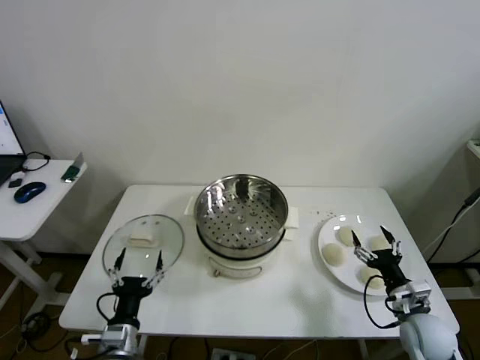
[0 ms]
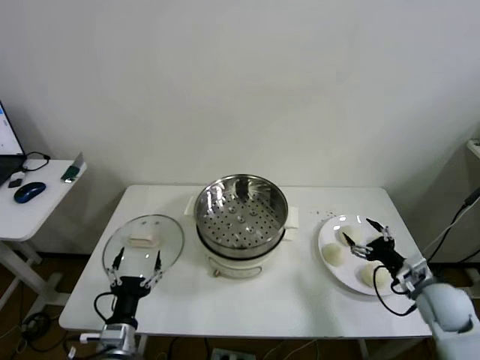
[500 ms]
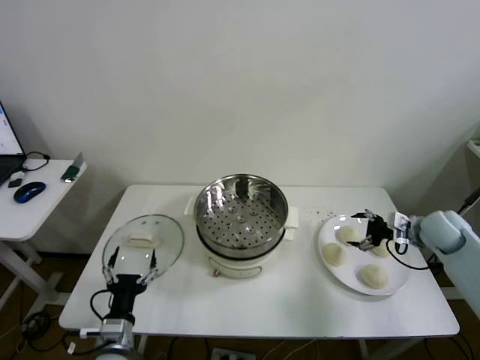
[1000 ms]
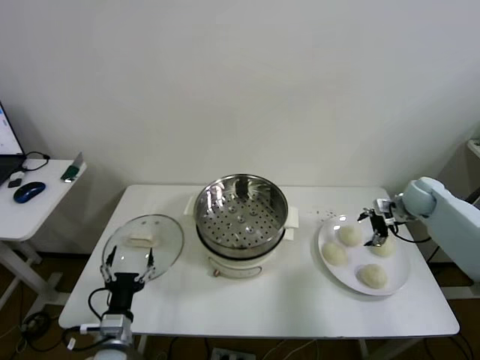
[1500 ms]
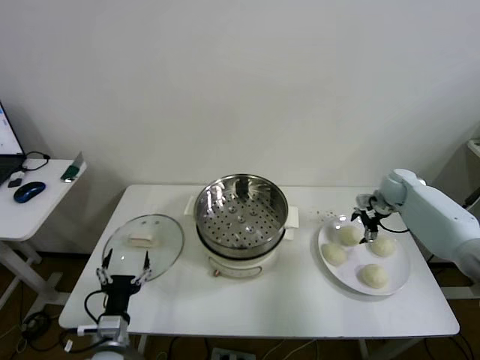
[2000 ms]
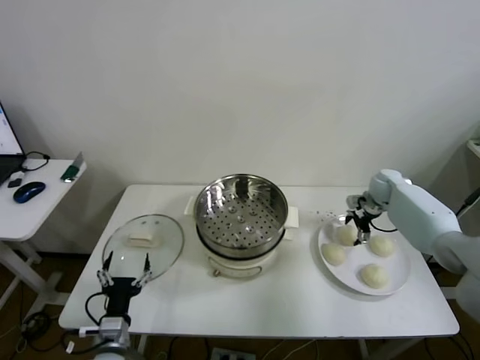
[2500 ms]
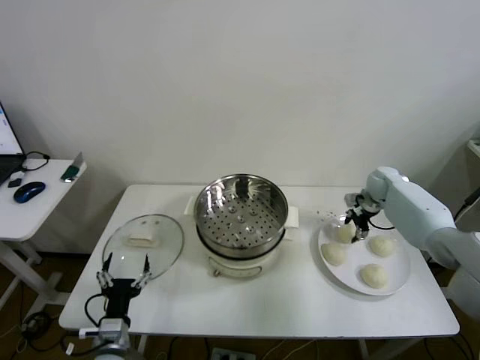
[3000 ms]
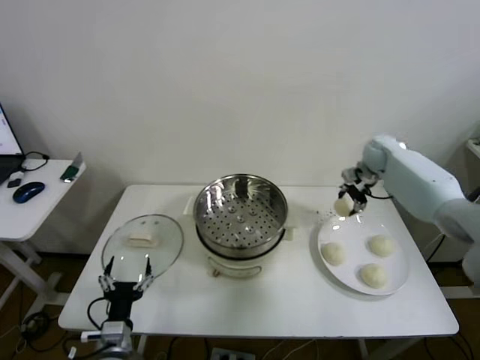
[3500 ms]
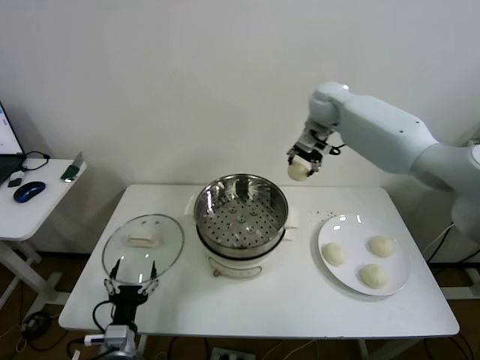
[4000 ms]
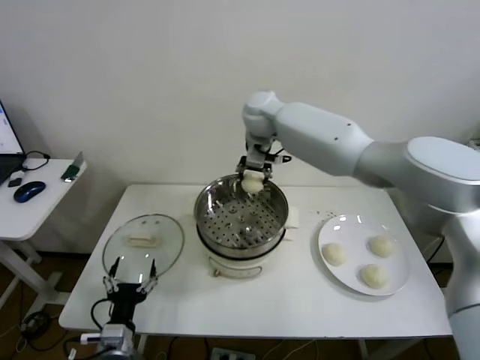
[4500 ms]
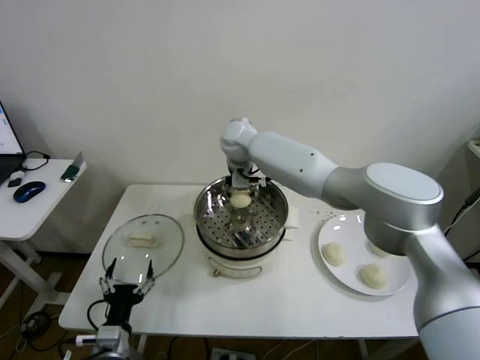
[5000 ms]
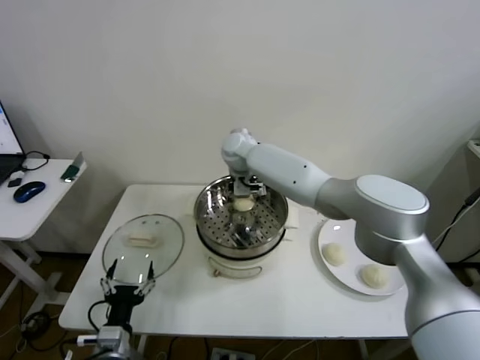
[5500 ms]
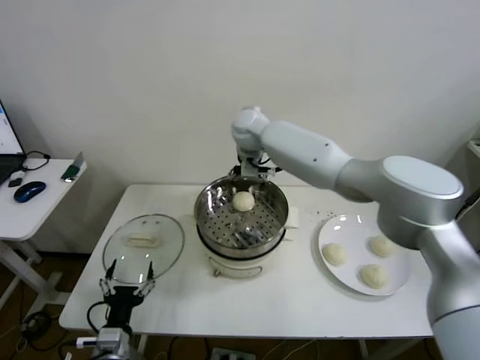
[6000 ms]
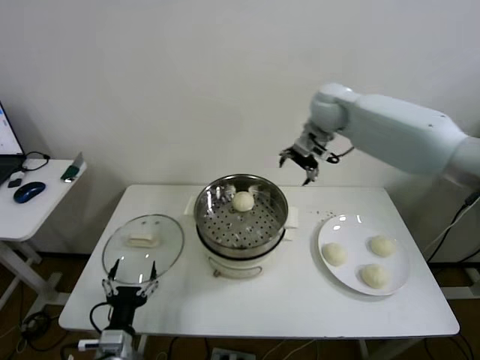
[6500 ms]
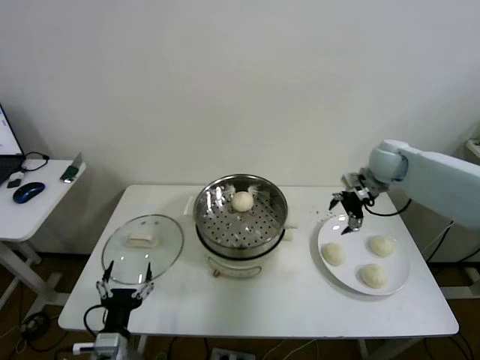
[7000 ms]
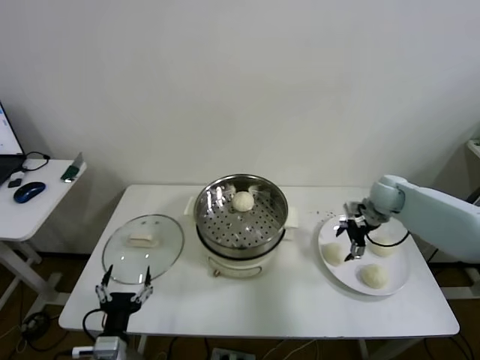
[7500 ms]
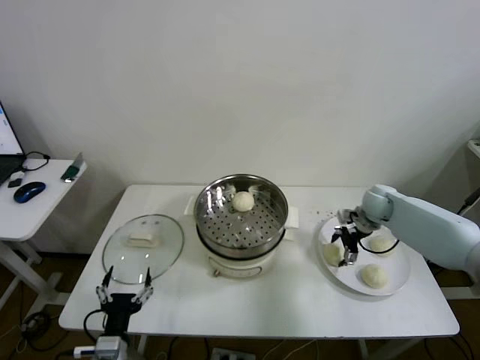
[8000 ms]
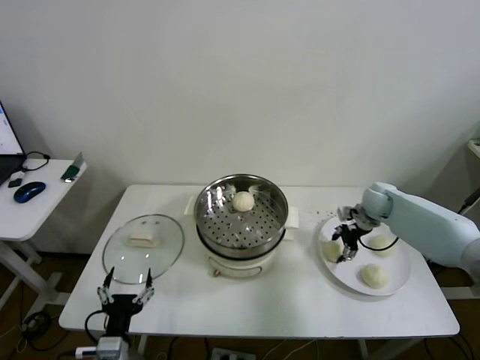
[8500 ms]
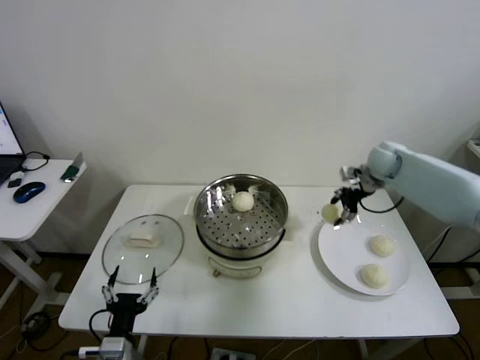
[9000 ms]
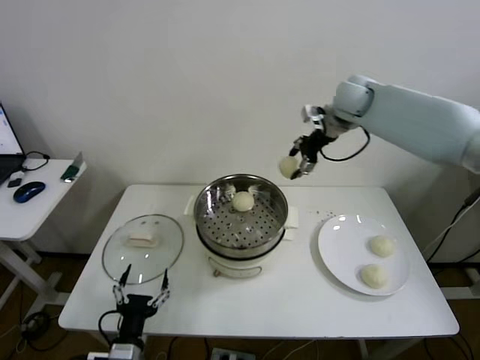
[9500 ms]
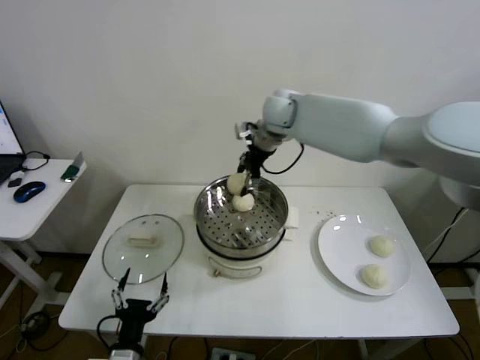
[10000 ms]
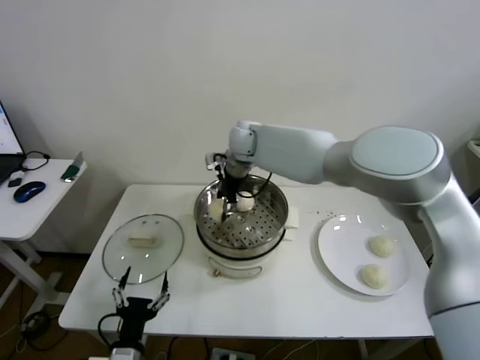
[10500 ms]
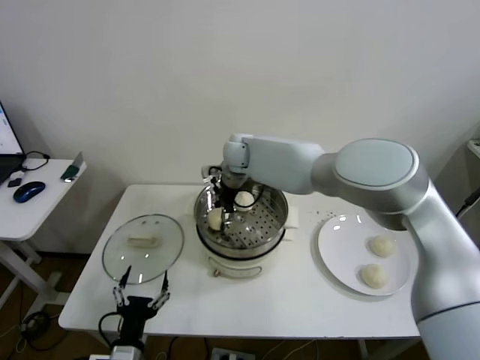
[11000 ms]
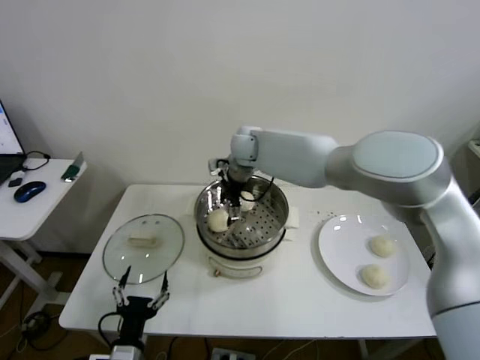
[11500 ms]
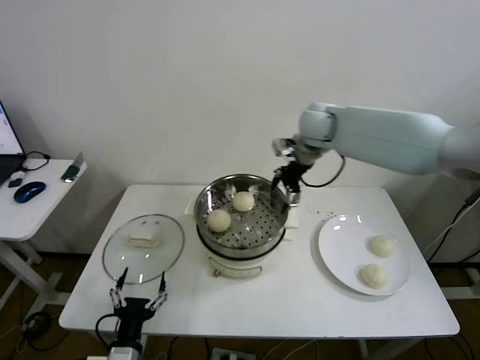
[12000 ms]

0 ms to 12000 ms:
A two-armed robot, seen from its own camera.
Step, 0 ms to 2500 ms: Grasp the baozi in the plate with right gripper.
Step, 3000 ms to 5500 ms: Place the baozi on the steamer with right gripper.
Step, 6000 ms to 8000 ms: Grasp the baozi in the plate with right gripper.
Step, 9000 ms to 11000 ms: Place the baozi on the steamer with right gripper.
2000 ms to 4000 ms: The right gripper moves to the left and upward, about 35 cm, and closes up.
4000 ms to 6000 ms: The right gripper travels to the left by some 10 cm, and opens its fingers.
6000 ms to 8000 ms: The right gripper shifts about 40 cm to the right and downward.
8000 ms to 10000 ms: The right gripper goes about 40 cm to the left and upward, and closes.
10000 ms to 12000 ms: The right gripper moves to the right, about 15 cm, and opens its fingers.

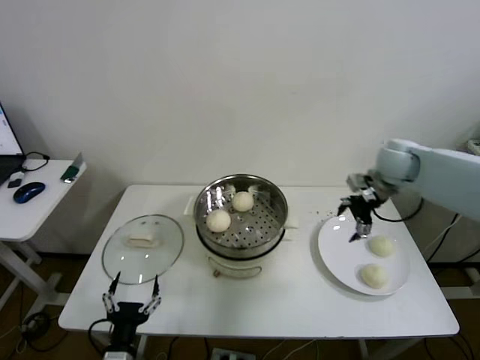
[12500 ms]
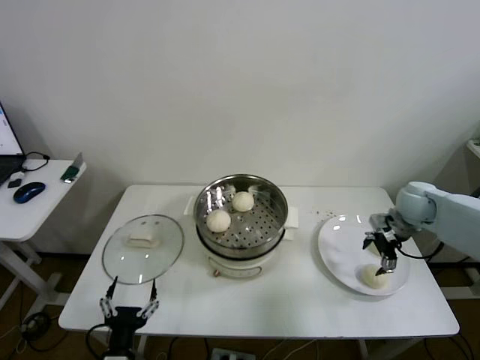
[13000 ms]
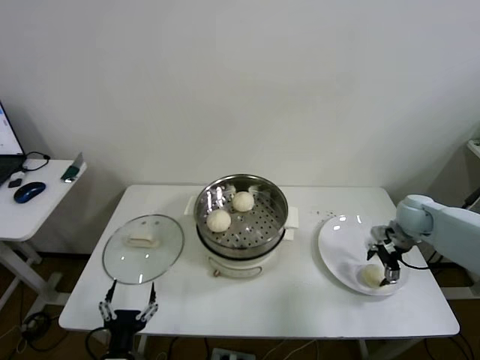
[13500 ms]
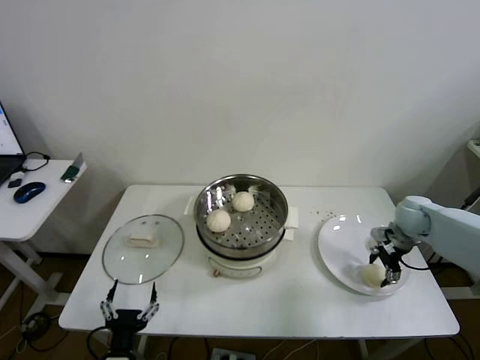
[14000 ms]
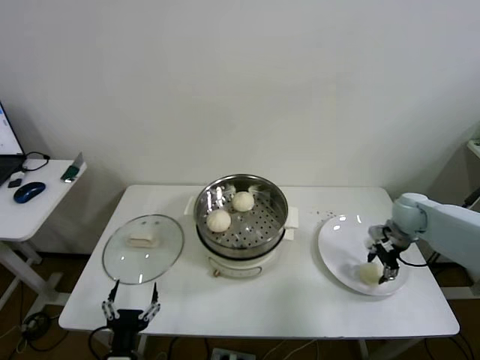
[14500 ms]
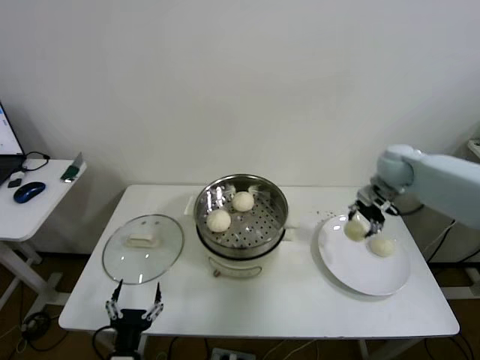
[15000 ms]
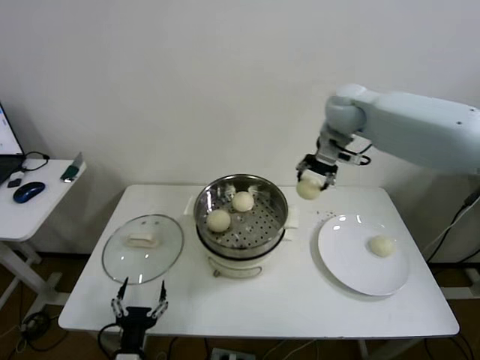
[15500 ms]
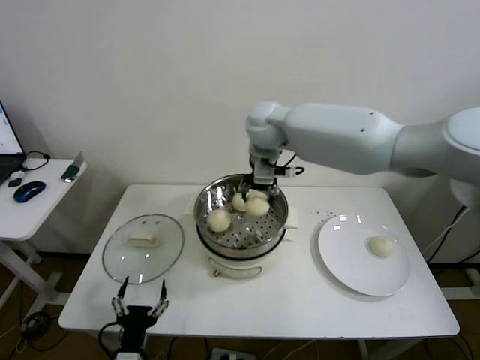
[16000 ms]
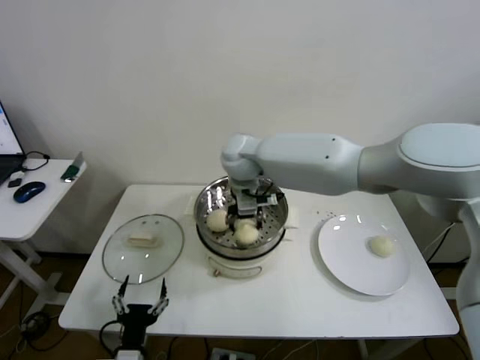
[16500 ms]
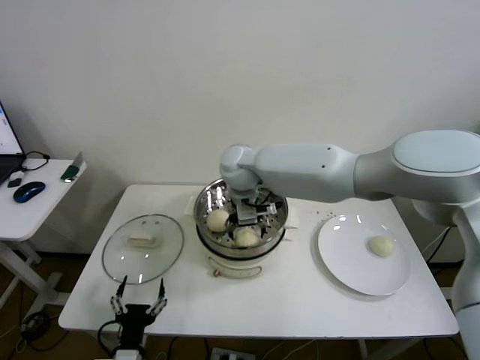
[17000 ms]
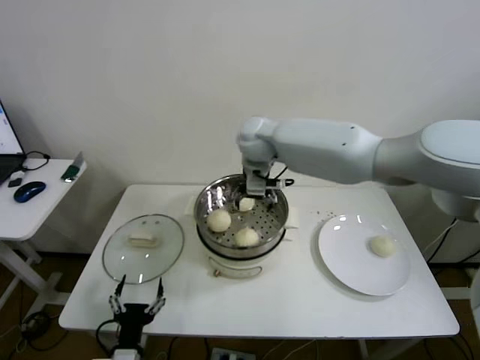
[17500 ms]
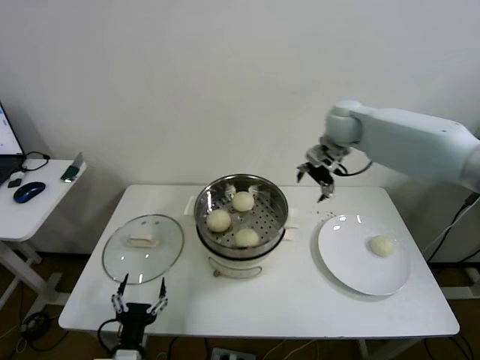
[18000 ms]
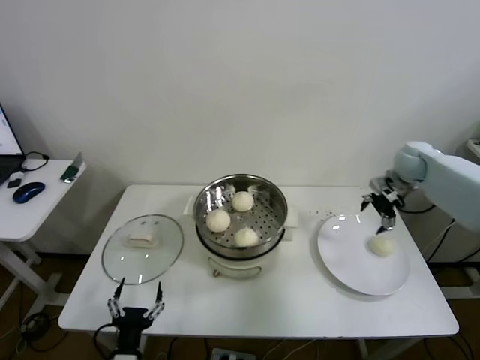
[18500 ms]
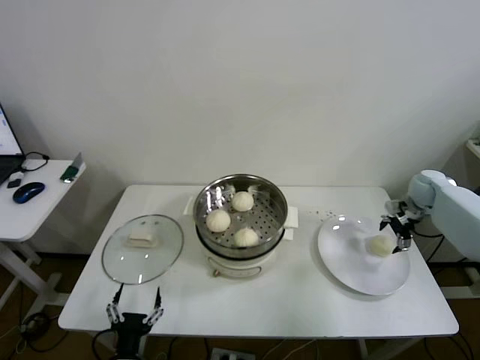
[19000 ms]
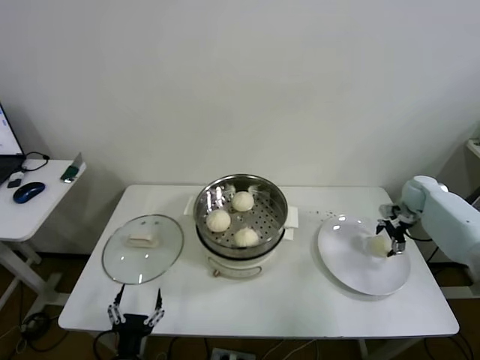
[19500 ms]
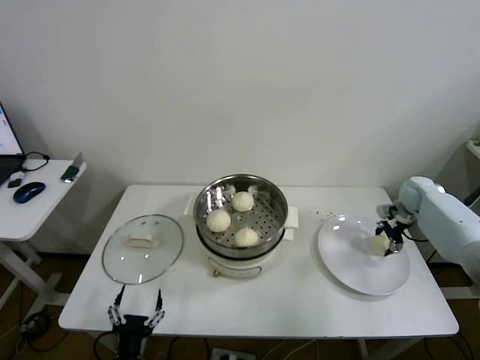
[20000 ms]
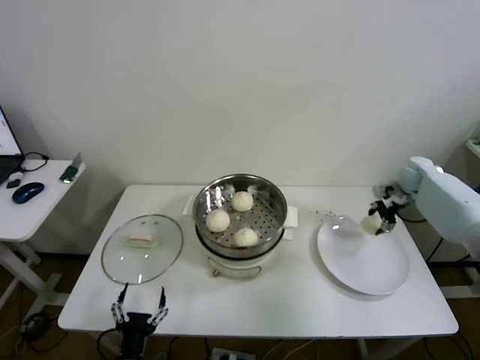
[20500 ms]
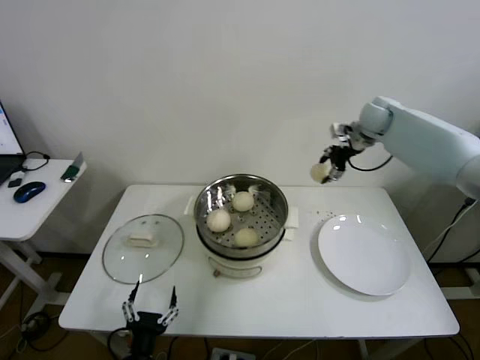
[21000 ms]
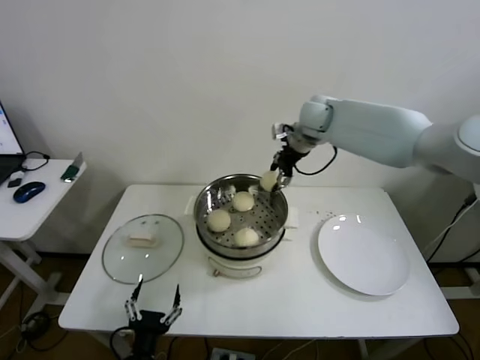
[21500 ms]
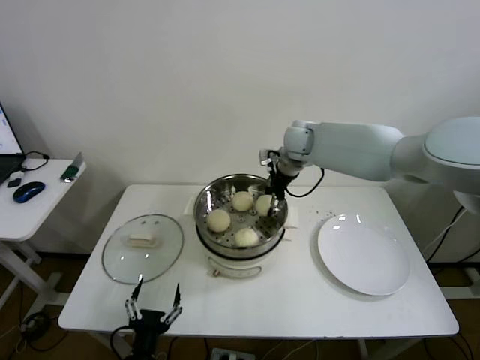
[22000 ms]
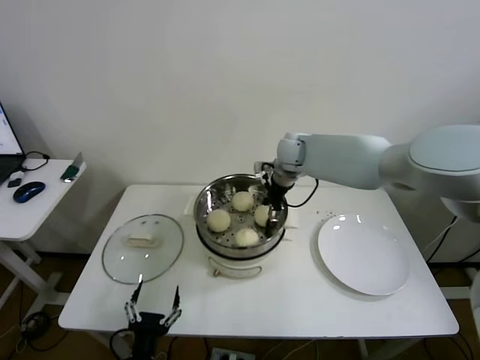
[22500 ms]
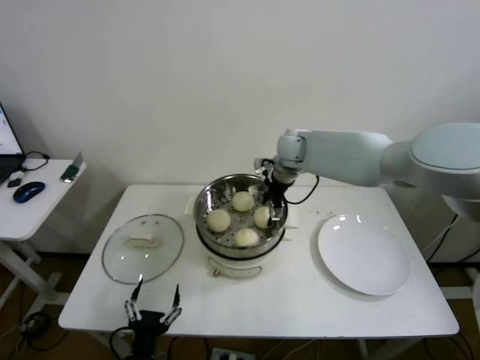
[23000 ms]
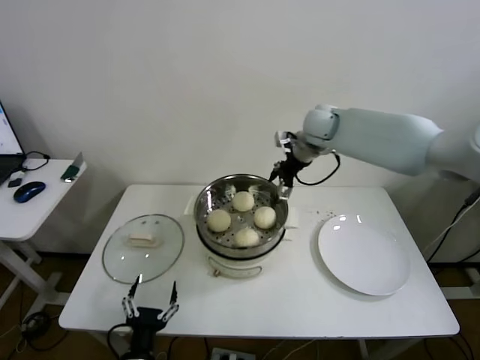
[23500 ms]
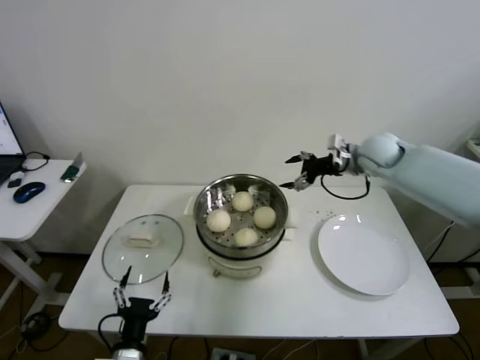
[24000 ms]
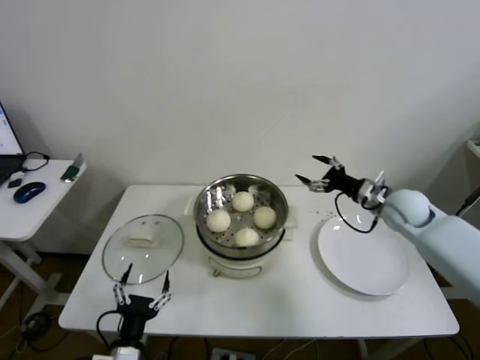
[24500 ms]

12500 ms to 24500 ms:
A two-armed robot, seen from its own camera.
Step, 12500 ms to 14000 ms: Grasp the baozi in the plate with right gripper.
Step, 14500 ms to 17000 ms: Place the baozi on the steamer with right gripper.
Step, 17500 ms to 20000 ms: Grasp the baozi in the plate with right gripper.
Step, 20500 ms to 23000 ms: Place the baozi on the steamer with right gripper.
12500 ms to 14500 ms: The right gripper heads downward and to the right, covering about 15 cm, and closes.
14500 ms to 16500 ms: The right gripper is displaced to the left by about 40 cm.
16500 ms to 18500 ms: The right gripper travels to the right by some 40 cm, and opens its fingers.
18500 ms to 20500 ms: The right gripper closes.
20500 ms to 22500 ms: The right gripper goes about 35 cm to the left.
22500 ms to 24500 ms: The right gripper shifts about 30 cm to the right and backward, and opens up.

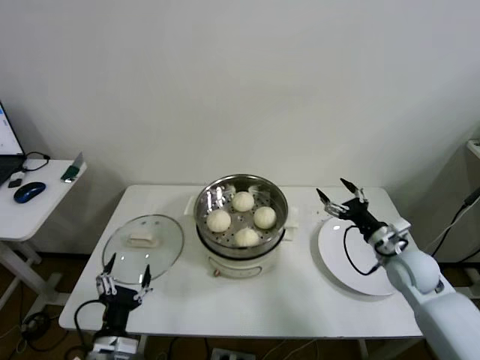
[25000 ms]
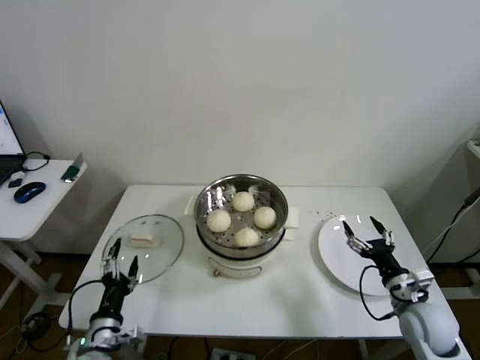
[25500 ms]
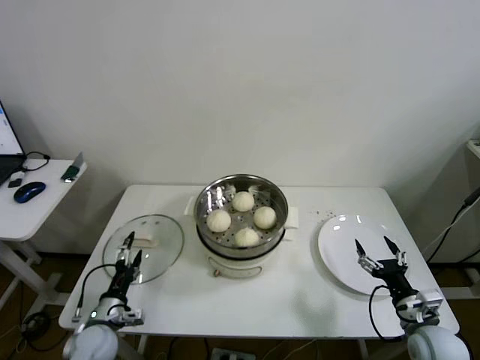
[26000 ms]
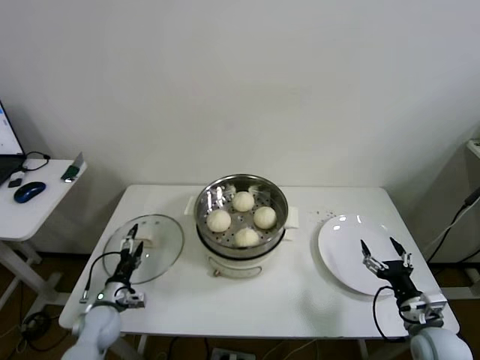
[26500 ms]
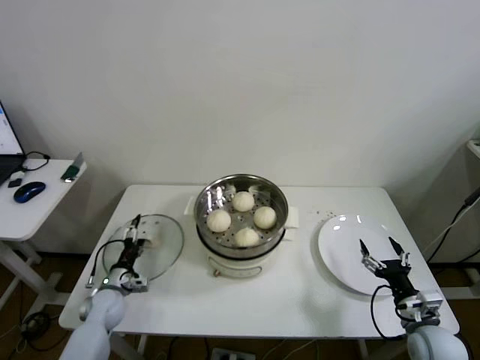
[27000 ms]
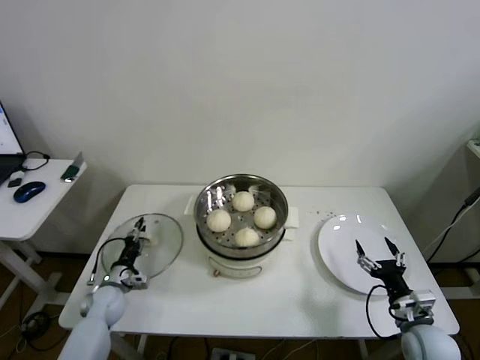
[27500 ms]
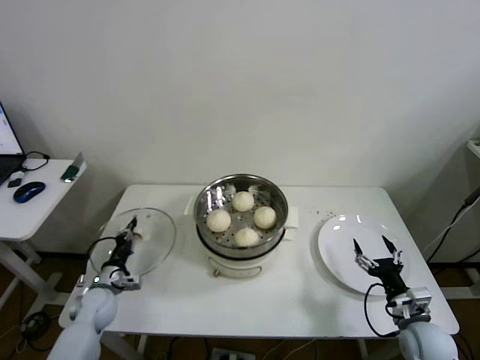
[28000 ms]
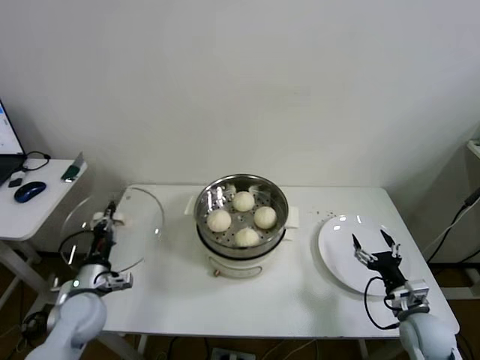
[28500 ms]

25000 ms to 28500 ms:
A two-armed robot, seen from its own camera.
Step, 25000 ms to 27500 ms: Grasp the pot lid with left gripper.
25000 ms to 27000 ms: The left gripper travels forward, downward and to the left by roughly 25 cm, while the right gripper shifts approximately 15 cm backward and downward.
27000 ms to 28500 ms: The left gripper moves upward, approximately 10 cm, and closes.
